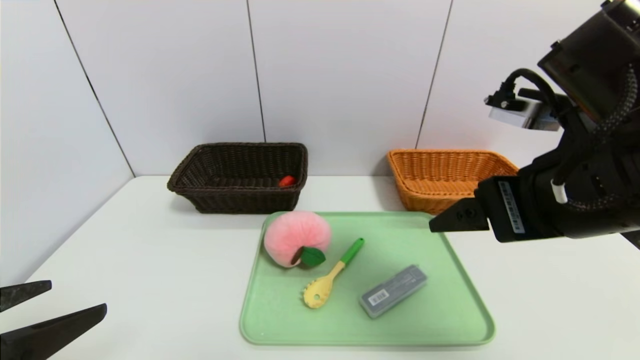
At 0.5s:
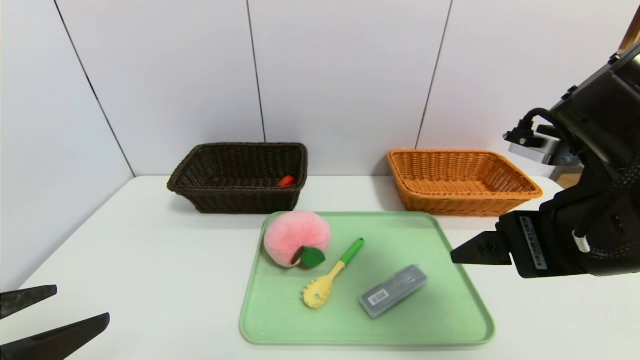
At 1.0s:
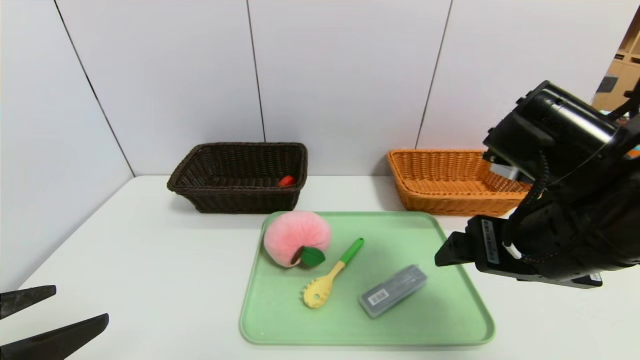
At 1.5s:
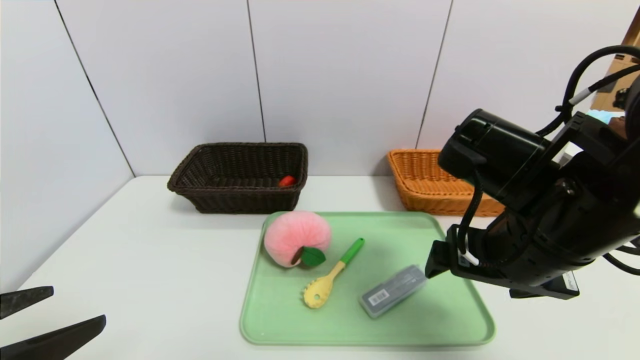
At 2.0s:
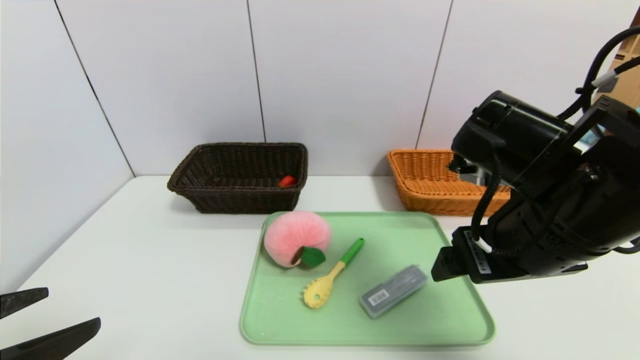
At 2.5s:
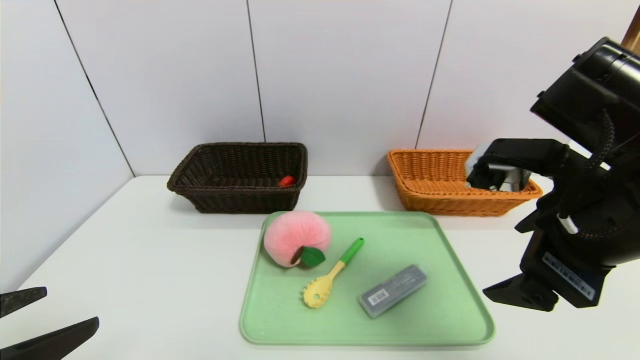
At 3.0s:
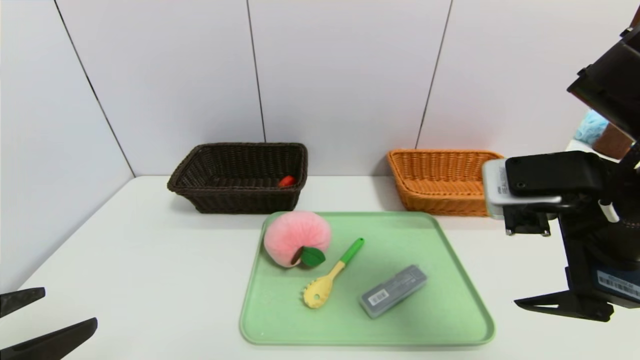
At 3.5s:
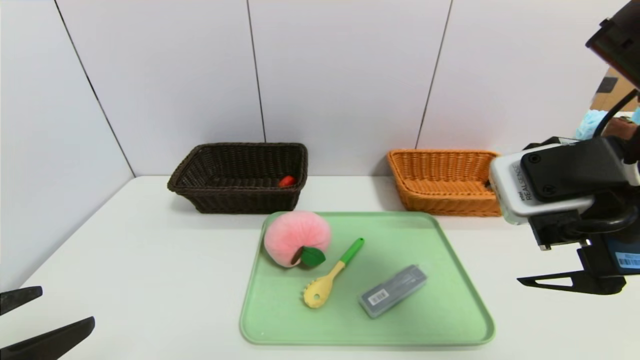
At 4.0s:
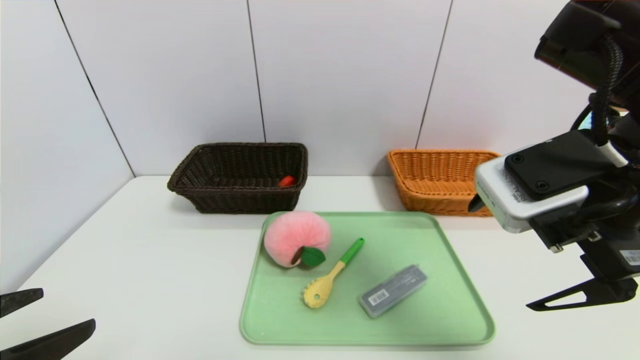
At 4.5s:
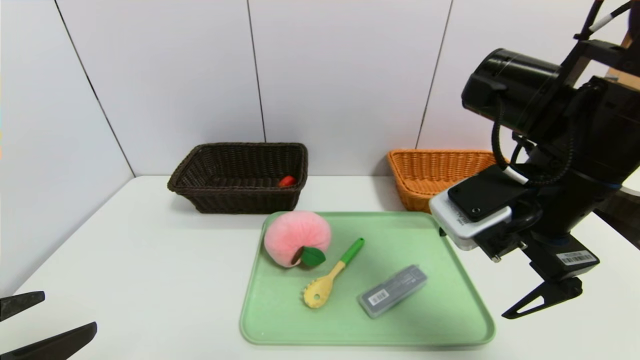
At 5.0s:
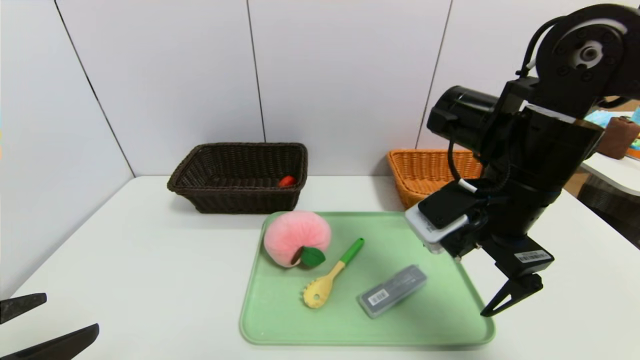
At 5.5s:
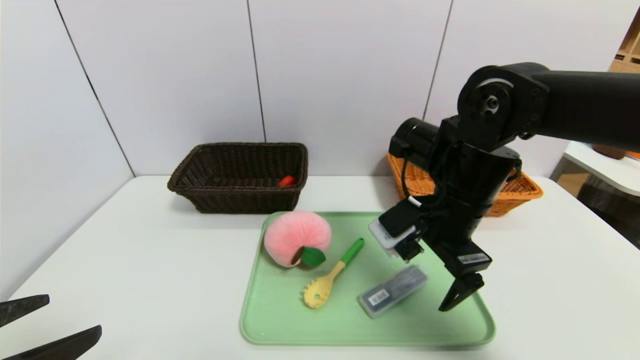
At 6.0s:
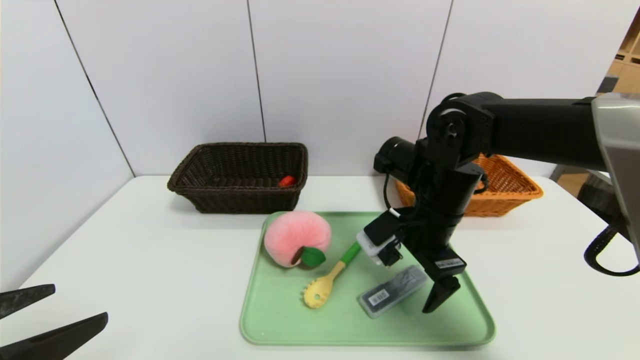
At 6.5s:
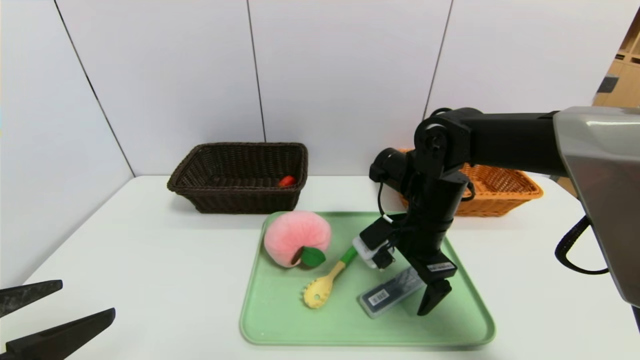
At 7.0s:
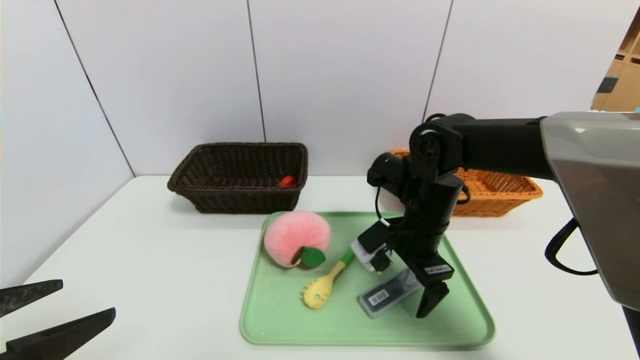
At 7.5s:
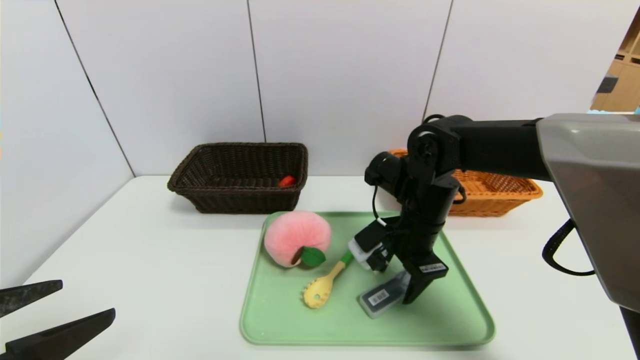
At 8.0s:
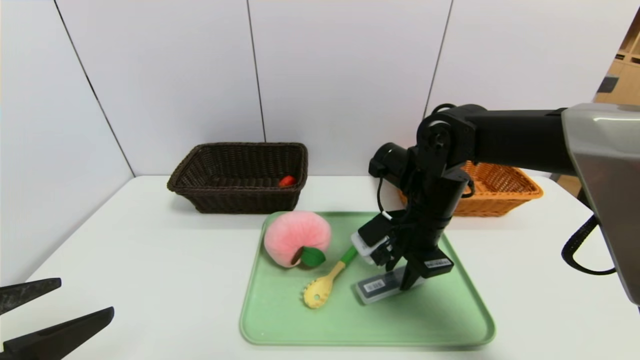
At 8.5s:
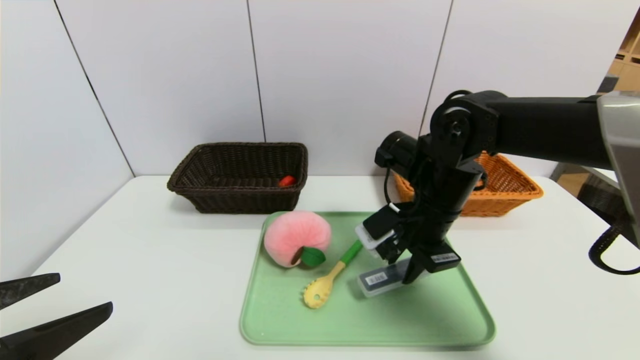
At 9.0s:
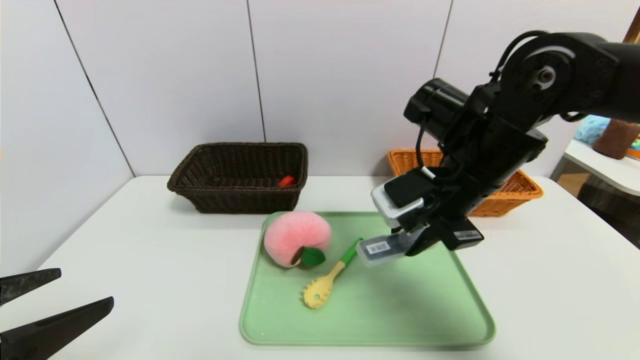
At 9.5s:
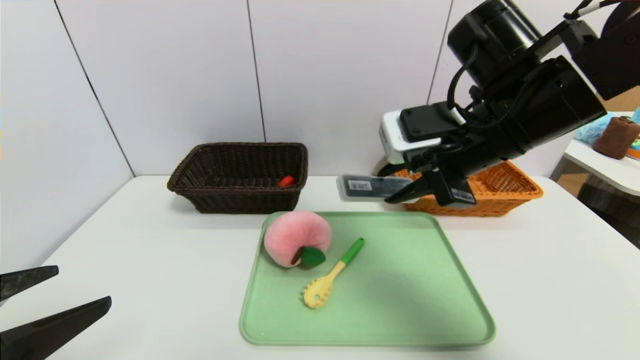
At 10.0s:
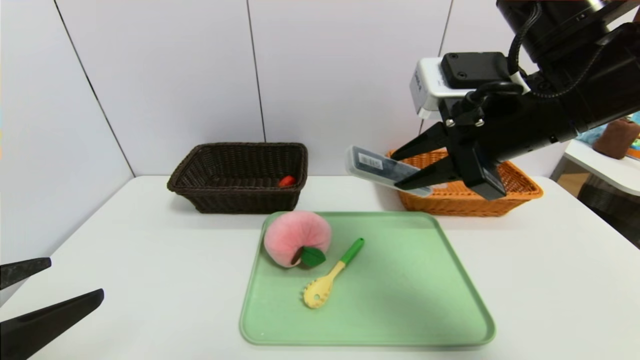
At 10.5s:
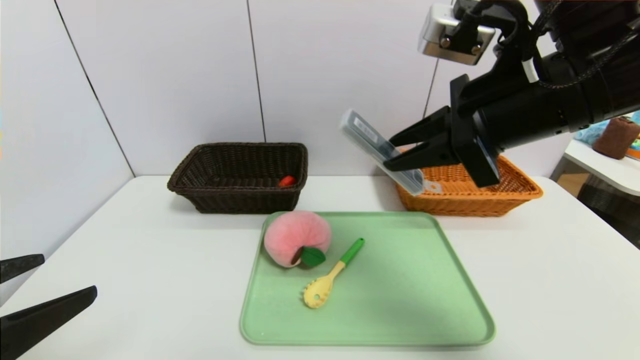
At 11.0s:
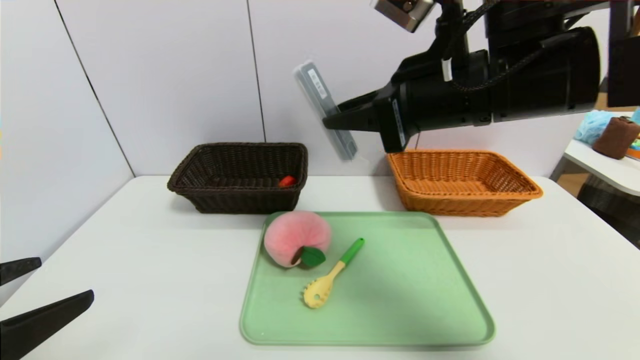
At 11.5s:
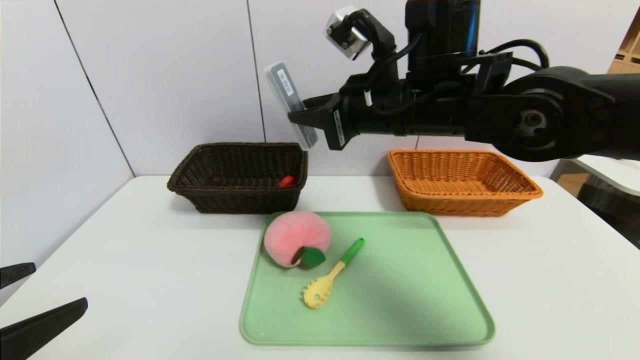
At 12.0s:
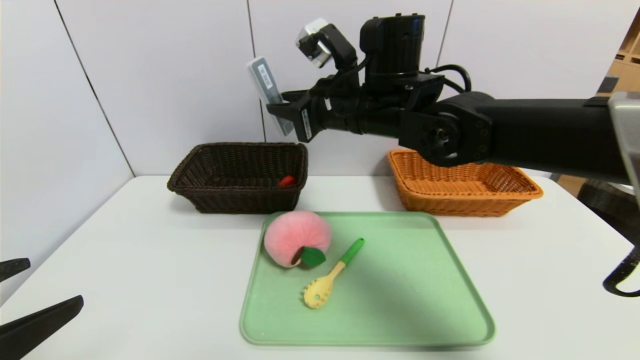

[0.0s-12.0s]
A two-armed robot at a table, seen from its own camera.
Task of the whole recording: place the food in the right basket with the right gripper, and place the non food items in the left basket with the left gripper.
2.0s to 4.0s: The right gripper is displaced upward by roughly 5 cm.
4.0s to 6.0s: The right gripper moves downward, forward and to the left, approximately 20 cm.
6.0s to 8.0s: The right gripper closes up.
8.0s to 10.0s: The right gripper goes about 20 cm upward and backward.
10.0s to 12.0s: The right gripper is displaced to the left and forward by approximately 15 cm.

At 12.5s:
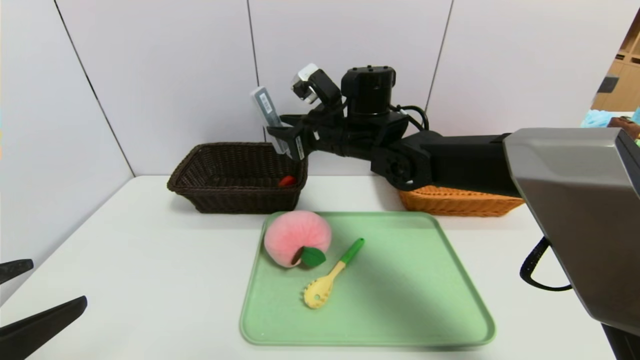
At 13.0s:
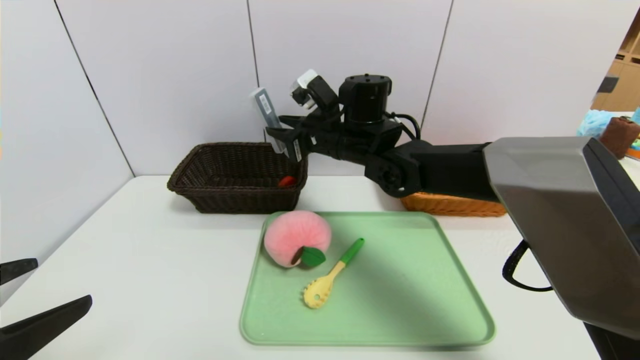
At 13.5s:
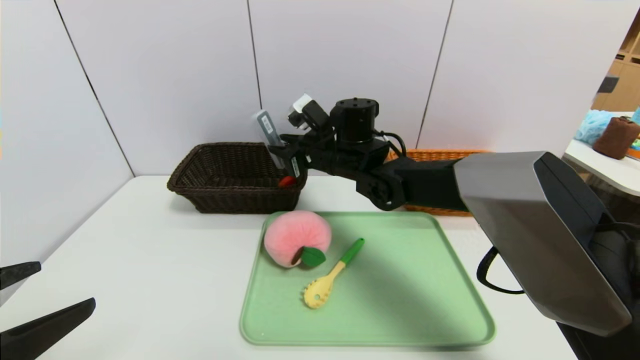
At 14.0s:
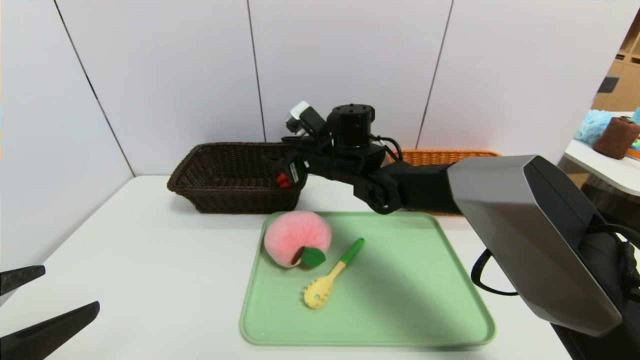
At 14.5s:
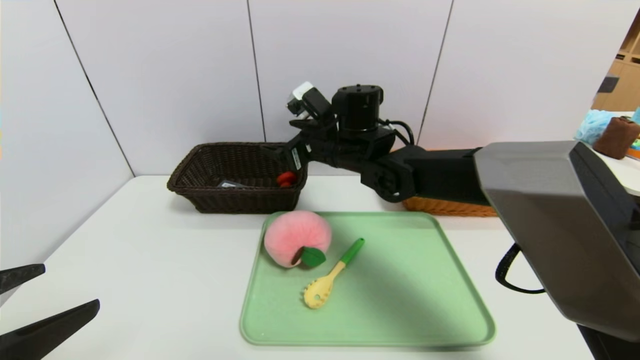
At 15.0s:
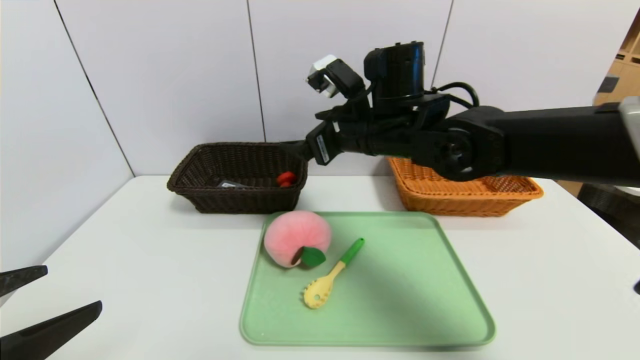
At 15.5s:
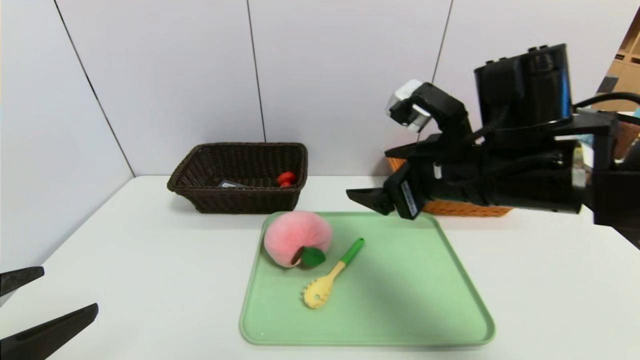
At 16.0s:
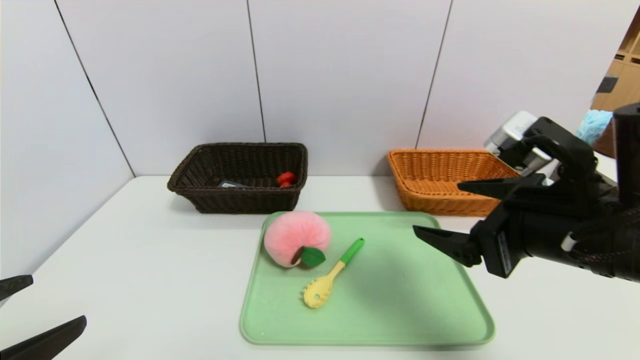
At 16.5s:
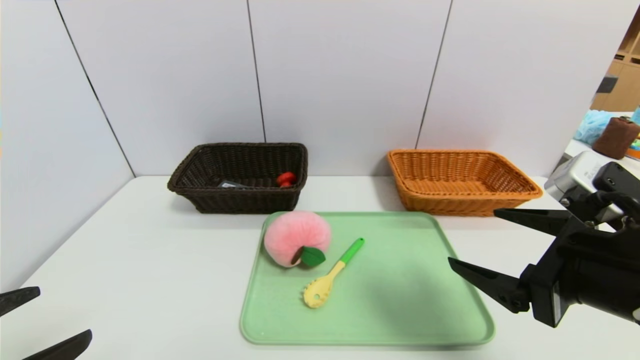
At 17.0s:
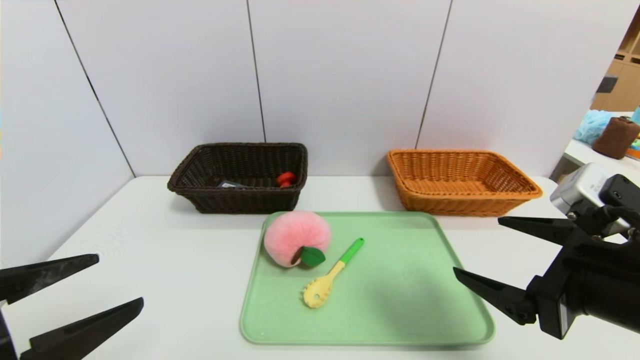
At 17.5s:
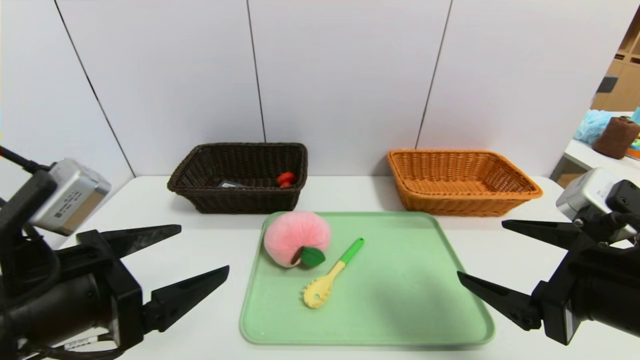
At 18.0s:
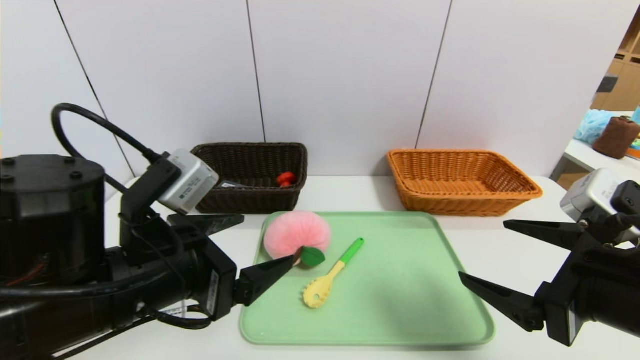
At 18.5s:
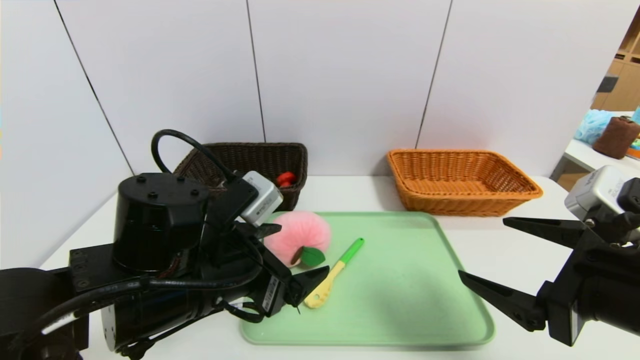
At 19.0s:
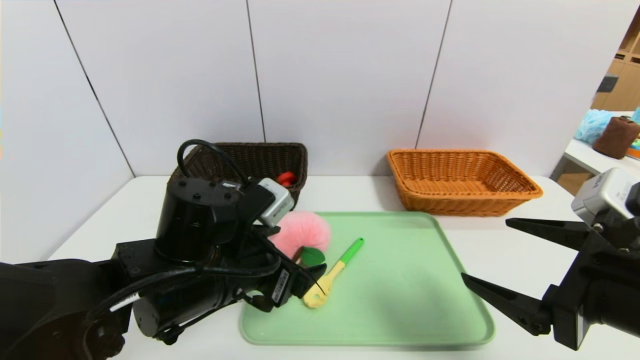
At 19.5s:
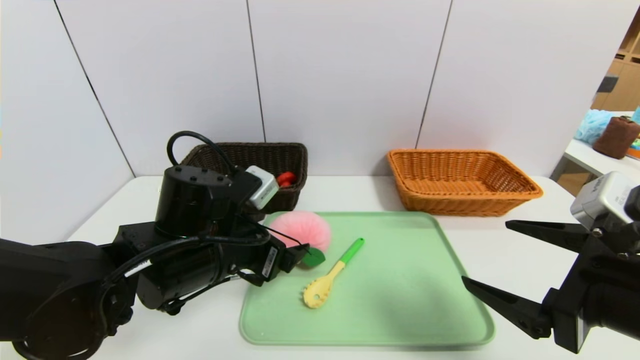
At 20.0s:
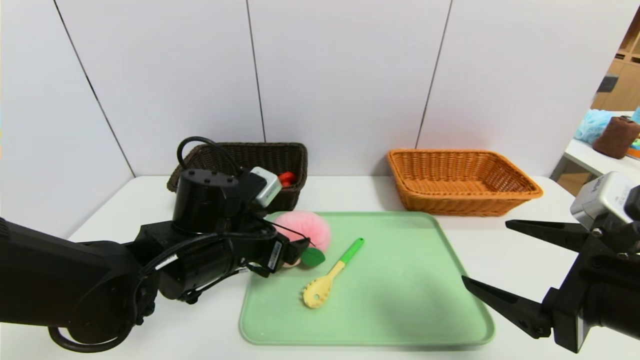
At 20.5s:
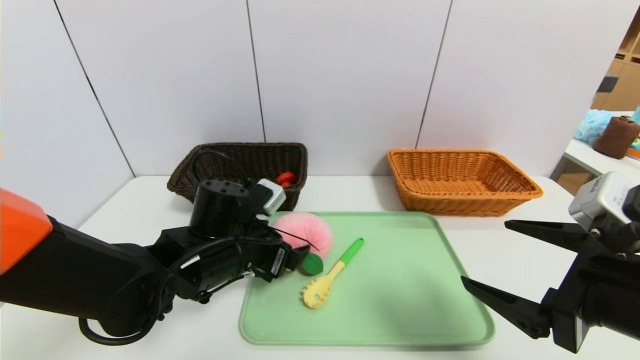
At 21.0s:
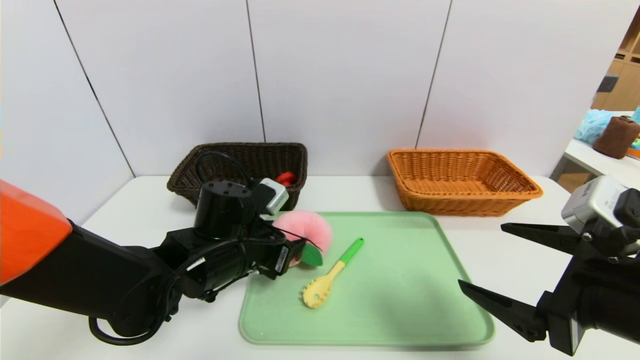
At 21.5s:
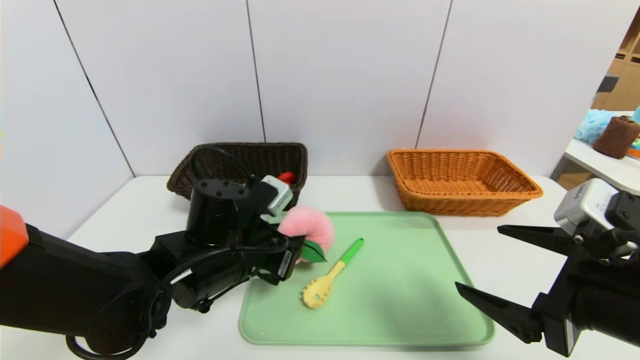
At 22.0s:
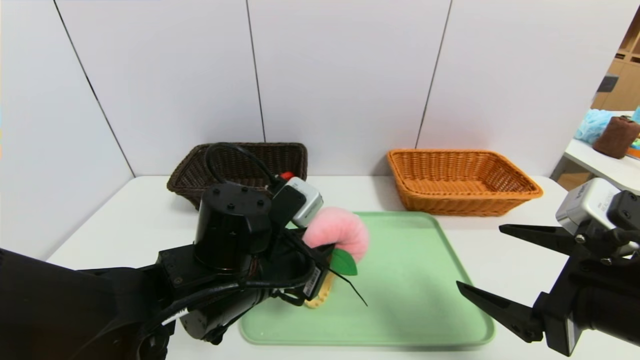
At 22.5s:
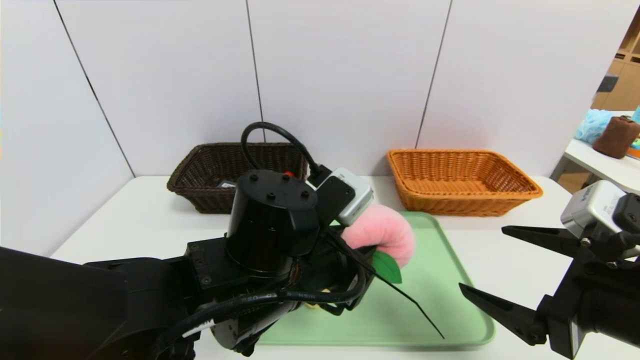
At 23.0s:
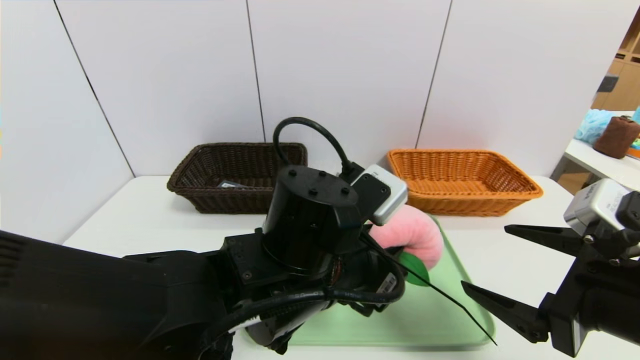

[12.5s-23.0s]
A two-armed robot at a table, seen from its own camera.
Task of the whole recording: place the food in the right basket with the right gripper, and place the non food items in the left basket with the left gripper.
12.5s to 14.5s: The right gripper opens.
14.5s to 16.5s: The right gripper heads backward and to the right, covering about 35 cm.
16.5s to 19.0s: The left gripper heads to the right and forward, covering roughly 25 cm.
19.0s to 21.0s: The left gripper travels forward by approximately 5 cm, and closes its fingers.
21.0s to 23.0s: The left gripper travels to the right, backward and upward by some 15 cm.
